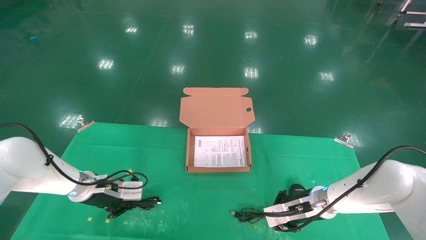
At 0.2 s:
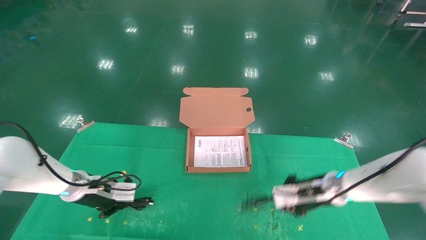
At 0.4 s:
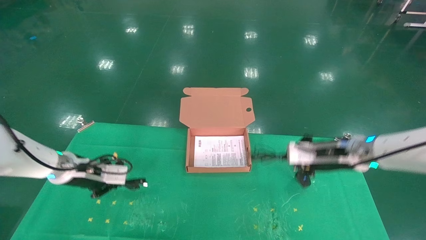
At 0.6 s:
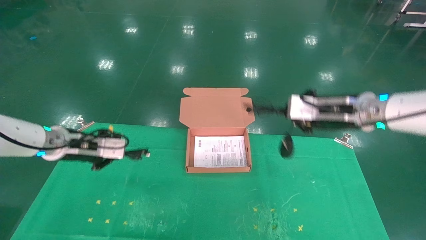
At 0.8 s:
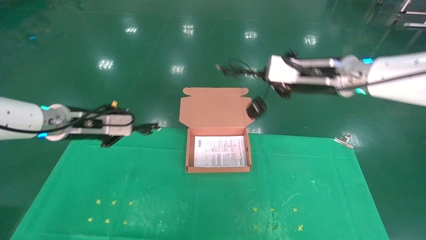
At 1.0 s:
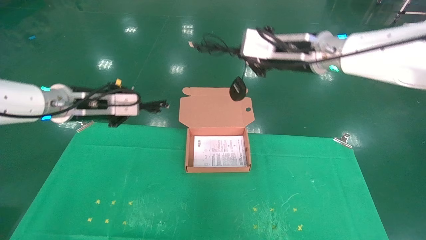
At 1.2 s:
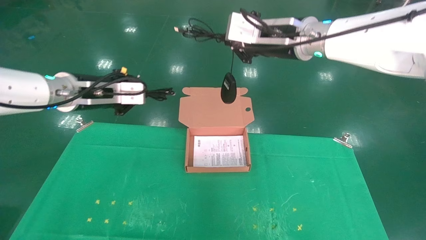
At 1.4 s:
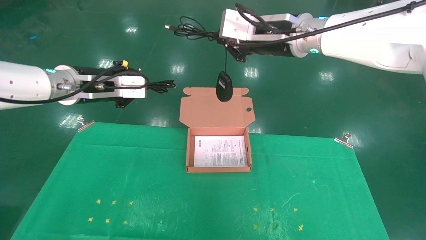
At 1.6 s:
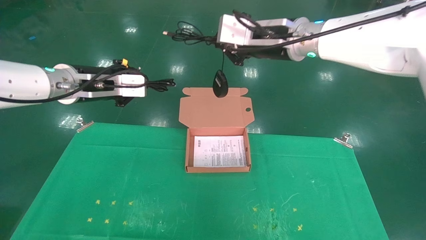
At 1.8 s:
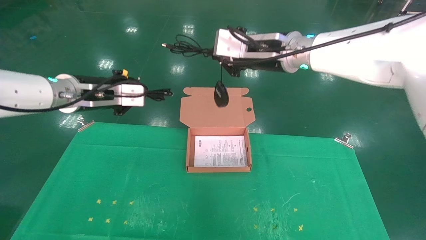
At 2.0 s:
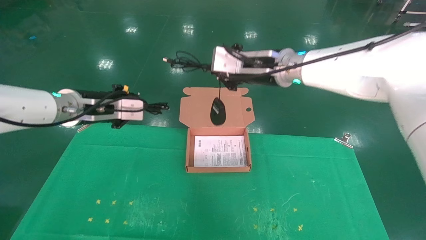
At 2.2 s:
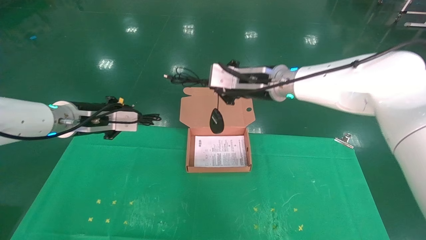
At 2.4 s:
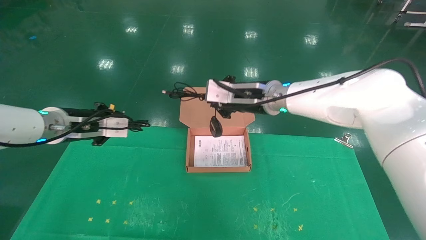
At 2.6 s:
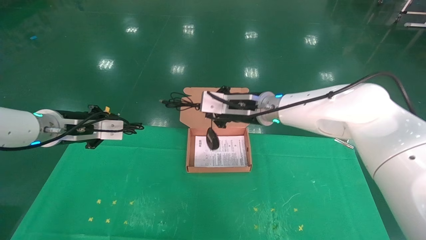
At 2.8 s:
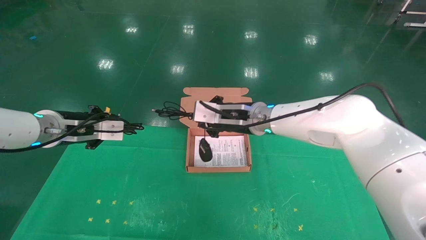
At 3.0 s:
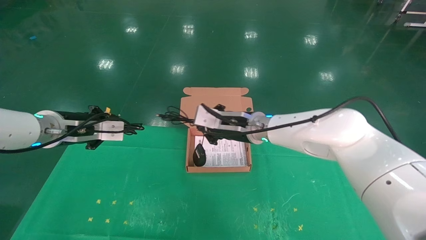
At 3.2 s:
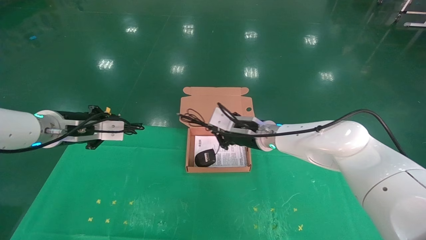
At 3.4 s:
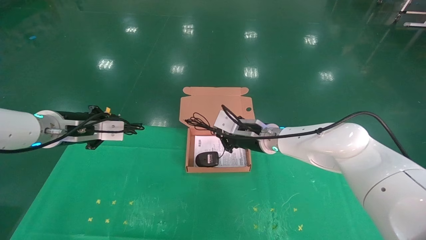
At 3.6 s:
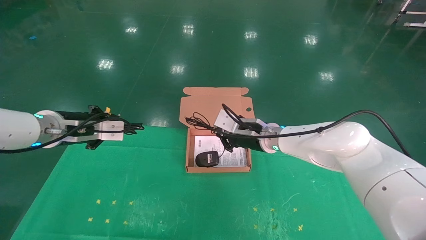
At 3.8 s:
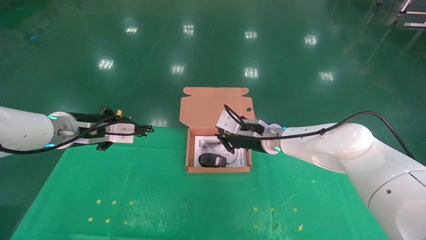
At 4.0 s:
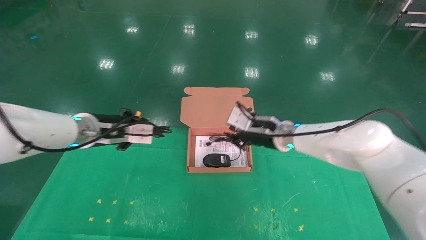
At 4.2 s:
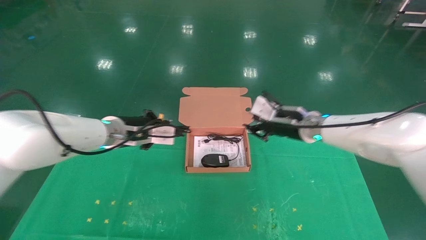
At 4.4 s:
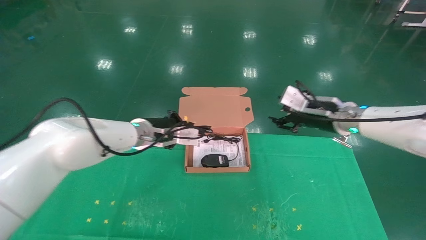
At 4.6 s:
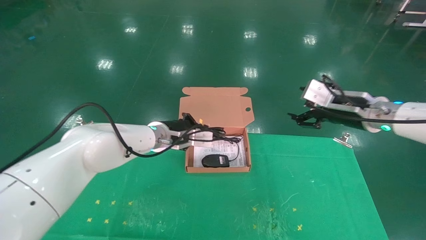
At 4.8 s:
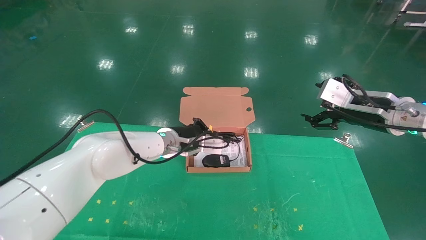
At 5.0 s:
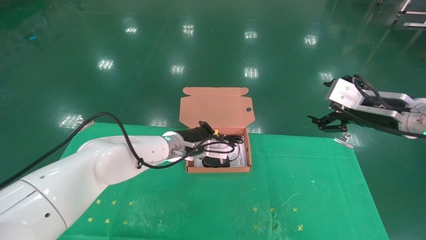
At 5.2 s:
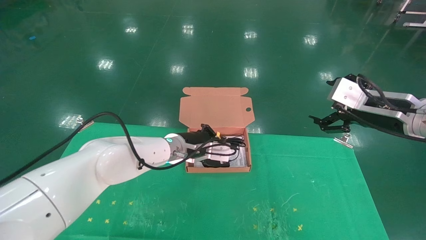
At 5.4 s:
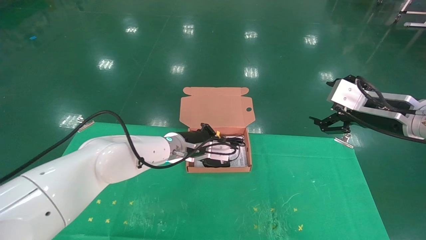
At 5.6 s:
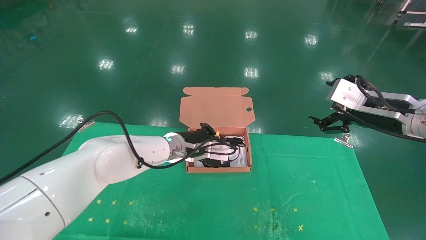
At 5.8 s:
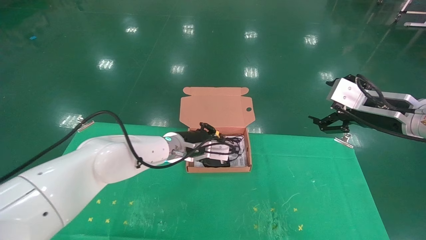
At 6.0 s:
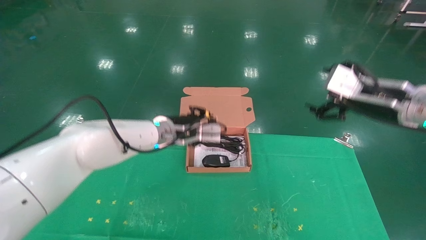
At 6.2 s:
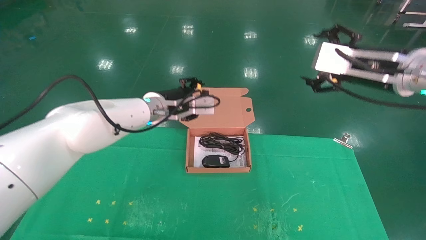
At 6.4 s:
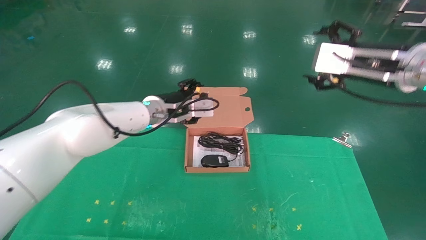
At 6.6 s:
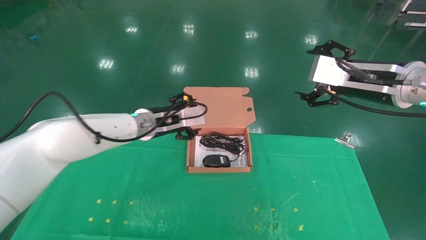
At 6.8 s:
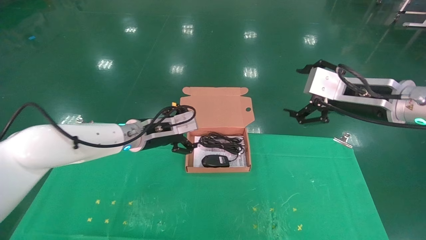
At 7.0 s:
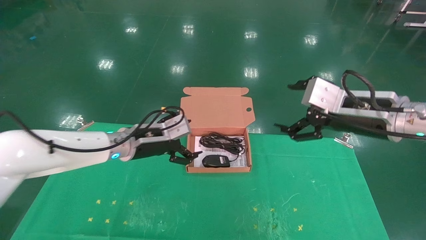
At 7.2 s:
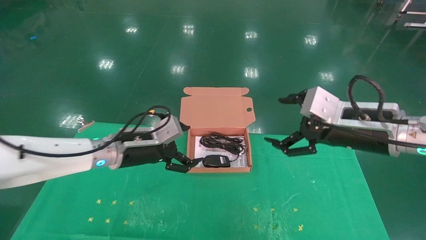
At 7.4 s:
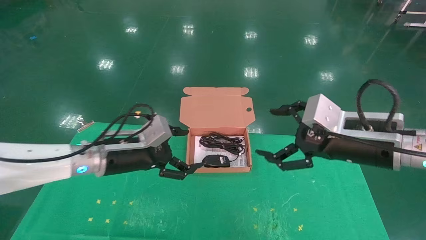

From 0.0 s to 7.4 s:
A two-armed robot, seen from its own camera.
Task of the whole recording: grasp data cable left put into box grasp mouse right put into box.
Step, from 0.4 s to 5.6 s: Place the mouse and power cord into the box.
From 0.0 s to 1.4 s: Both grippers move upward, roughly 30 cm.
From 1.4 s to 3.0 s: The left gripper travels downward by roughly 5 cm. Meanwhile the right gripper goes approximately 20 cm downward.
From 3.0 s to 4.4 s: The right gripper shifts about 15 cm to the right. The left gripper travels to the right and forward by approximately 15 cm.
From 4.4 s to 6.0 s: The left gripper goes approximately 10 cm to the right, while the right gripper shifts roughly 15 cm backward, to the right and upward, and opens its fingers.
From 6.0 s to 7.4 s: The left gripper travels to the left and backward by roughly 15 cm, and opens up. The right gripper is displaced to the left and backward by some 10 cm.
